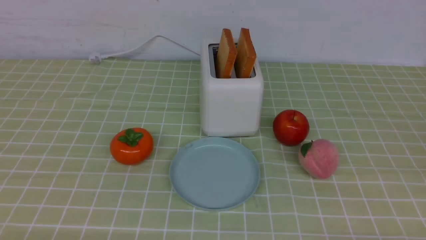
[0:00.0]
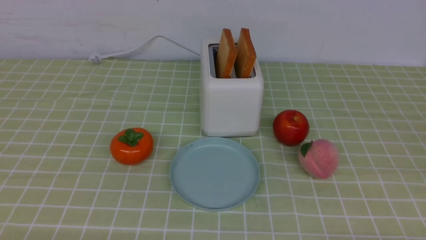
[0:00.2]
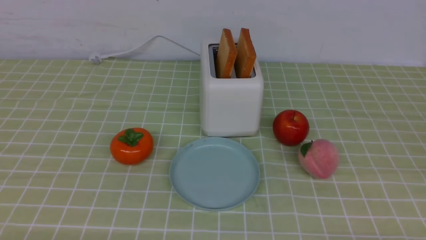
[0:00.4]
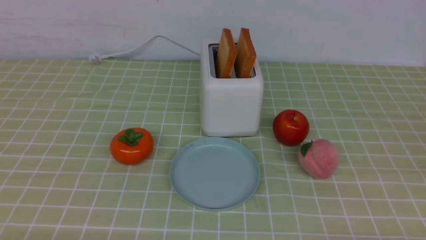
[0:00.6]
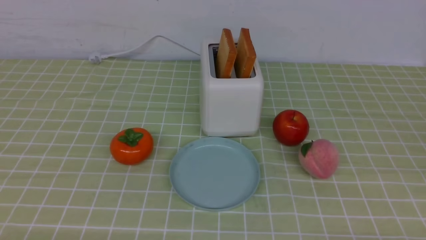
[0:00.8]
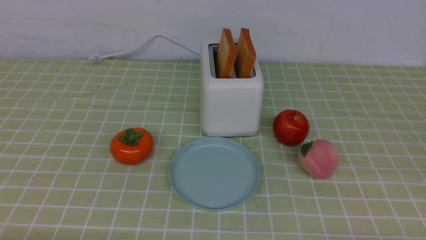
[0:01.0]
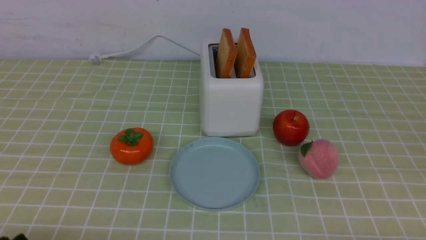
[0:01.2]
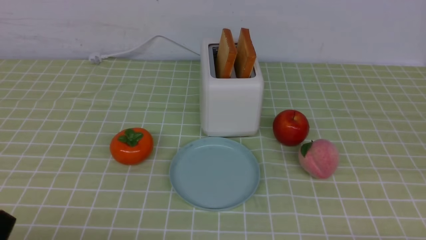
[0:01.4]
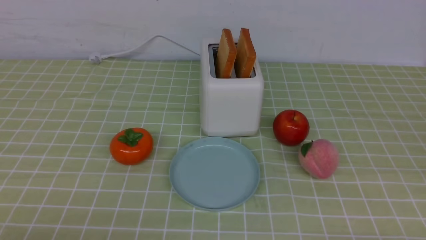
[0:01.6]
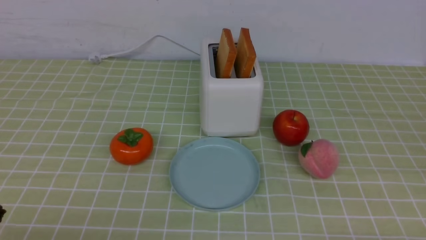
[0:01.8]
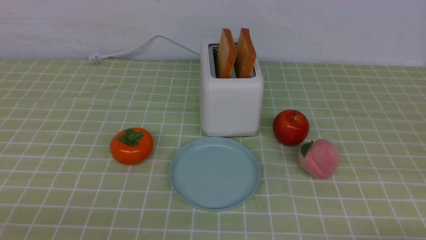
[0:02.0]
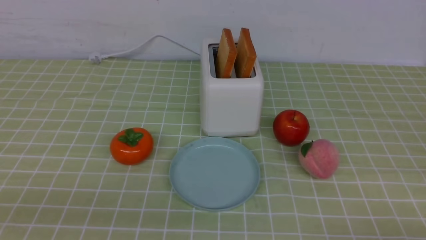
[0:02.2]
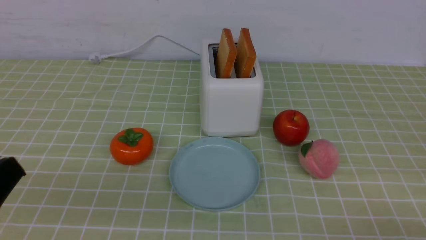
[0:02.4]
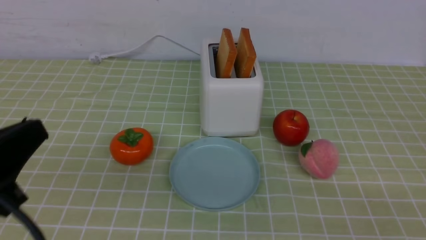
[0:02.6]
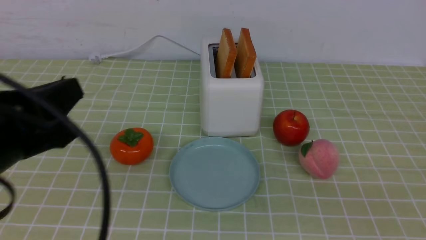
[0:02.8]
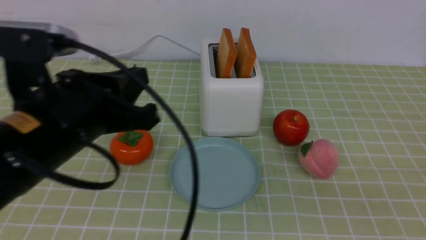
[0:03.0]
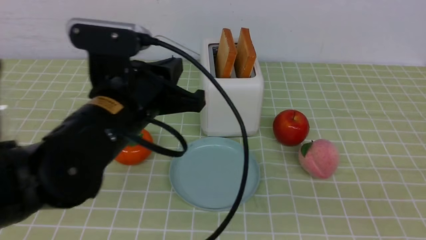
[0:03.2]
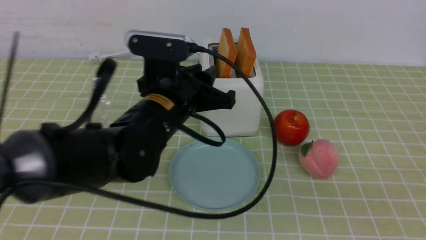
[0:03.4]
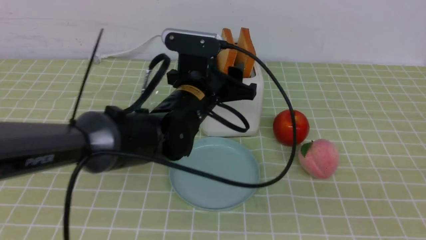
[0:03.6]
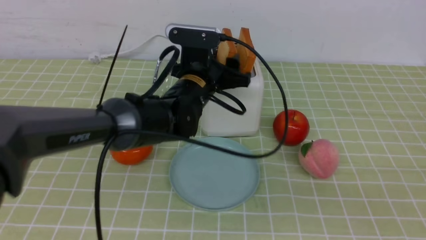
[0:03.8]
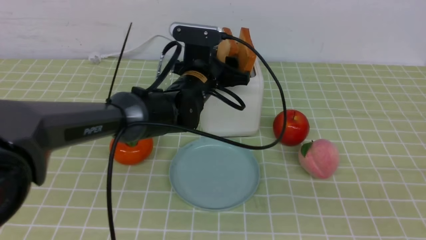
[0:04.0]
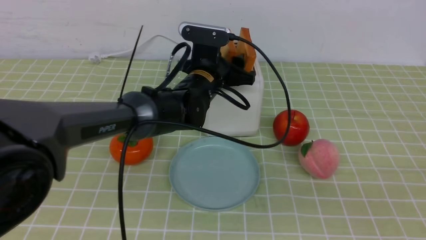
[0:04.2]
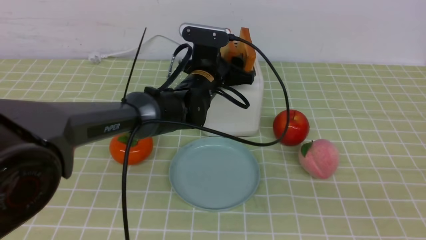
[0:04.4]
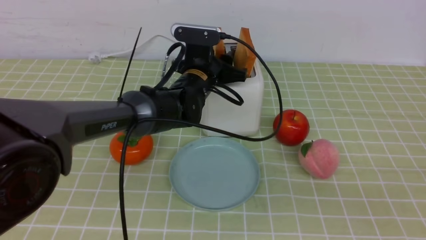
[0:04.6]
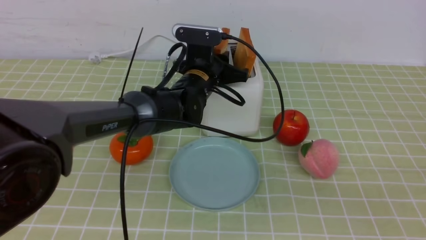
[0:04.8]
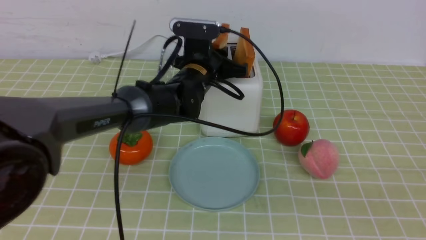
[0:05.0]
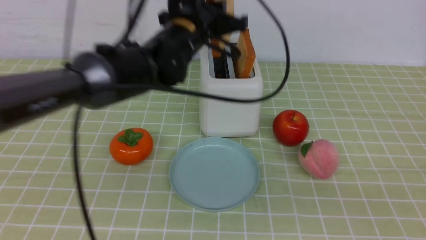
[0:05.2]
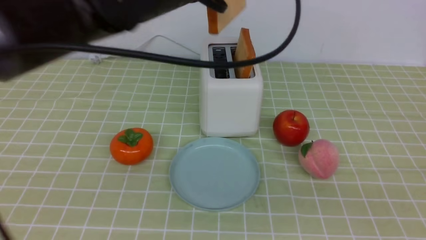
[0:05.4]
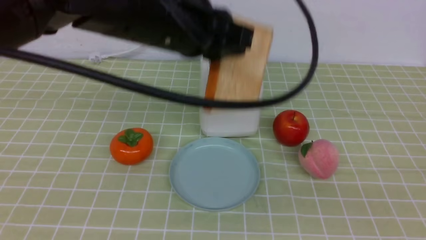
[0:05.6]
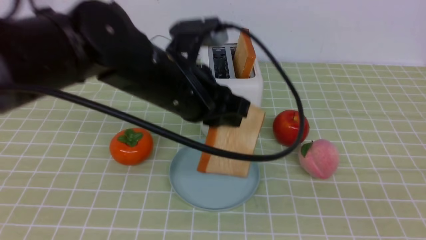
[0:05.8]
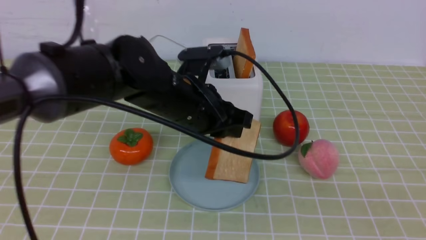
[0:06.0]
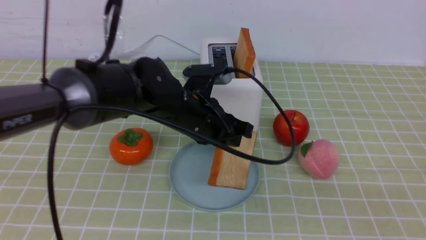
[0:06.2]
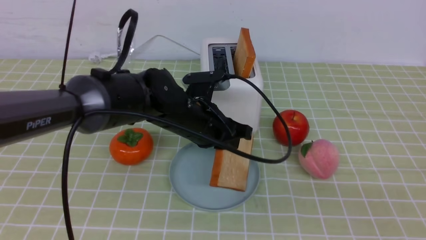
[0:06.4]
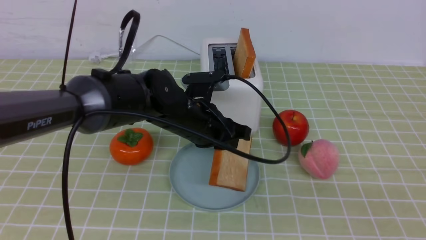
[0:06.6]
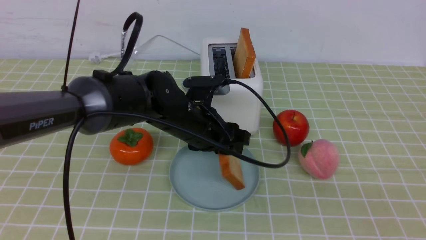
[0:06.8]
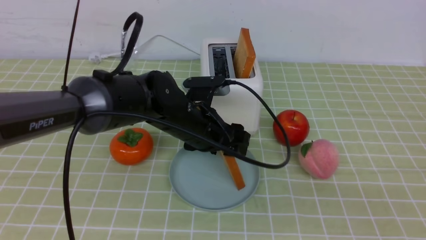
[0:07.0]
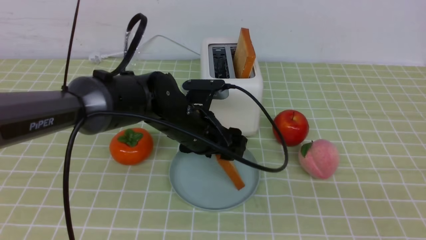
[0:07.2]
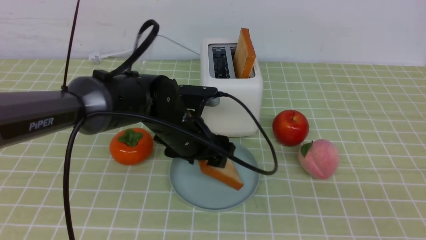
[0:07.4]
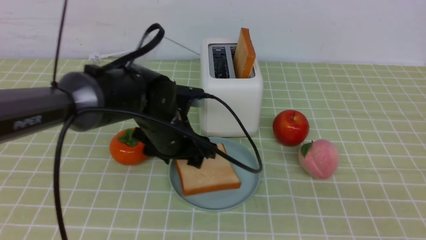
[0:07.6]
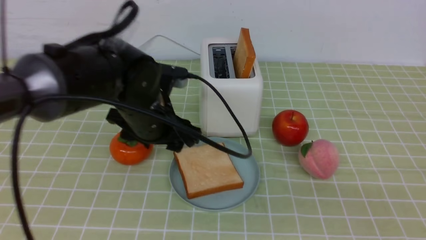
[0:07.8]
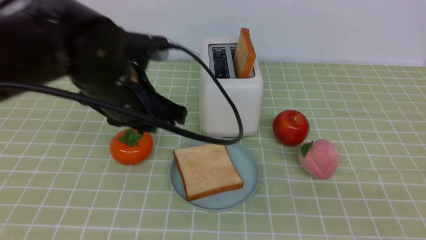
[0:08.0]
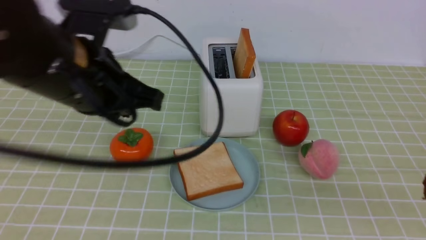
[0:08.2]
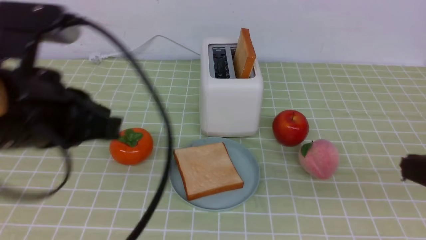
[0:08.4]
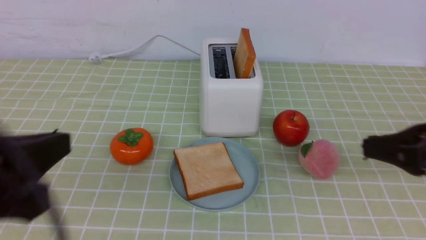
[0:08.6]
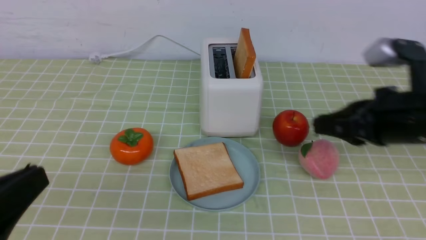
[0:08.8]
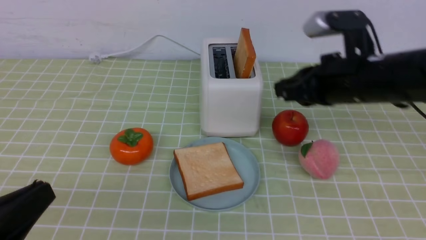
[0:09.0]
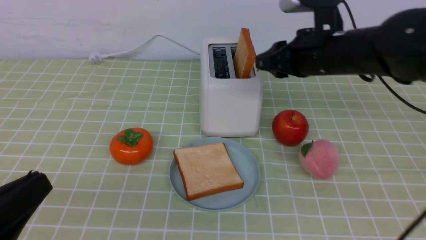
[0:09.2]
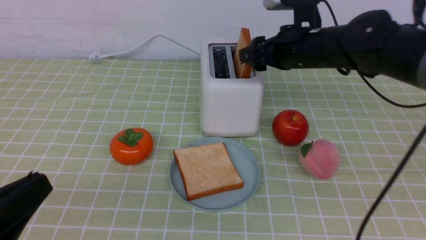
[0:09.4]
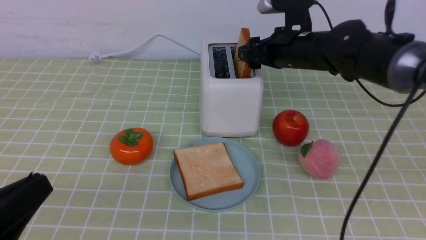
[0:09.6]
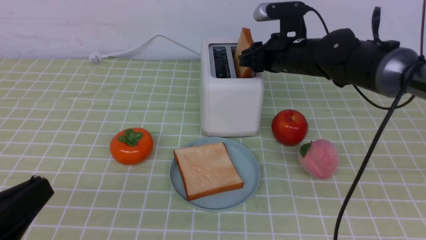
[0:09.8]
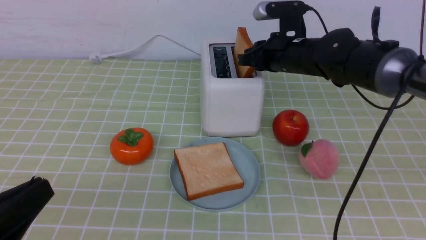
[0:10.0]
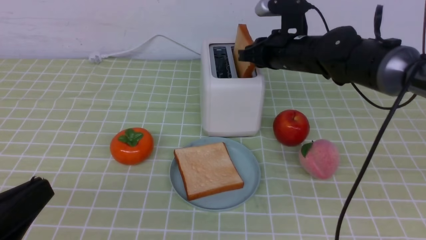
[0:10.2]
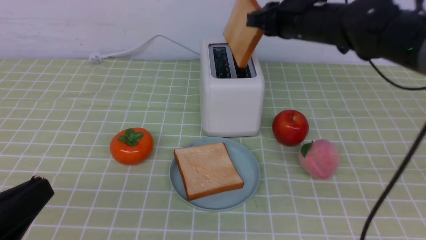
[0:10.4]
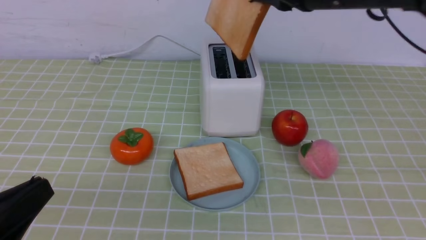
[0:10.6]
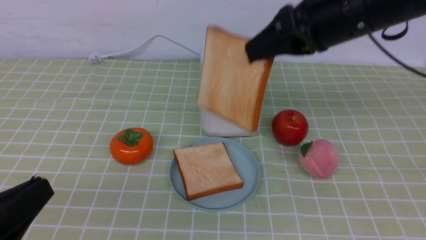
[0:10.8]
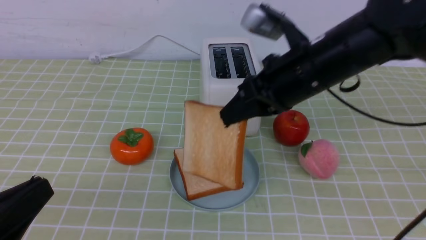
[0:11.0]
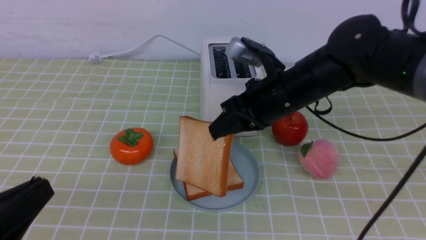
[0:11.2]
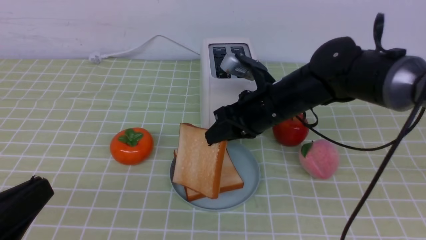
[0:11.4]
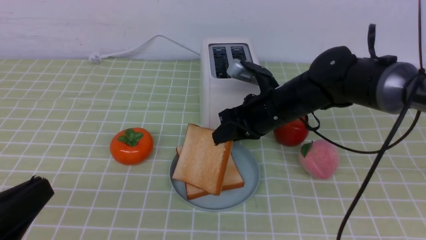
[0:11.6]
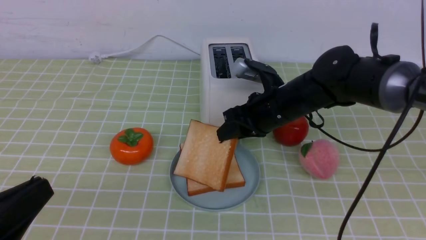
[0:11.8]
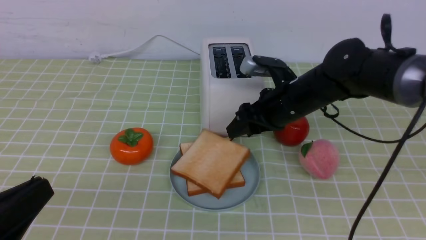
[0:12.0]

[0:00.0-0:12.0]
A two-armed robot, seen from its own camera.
Task of the whole recording: take toasted bread from bread machine on green coffee tablecloth place on plate.
Step, 0:00.0 to 0:05.2: use the left arm to take out a slice of bread.
Step, 0:05.4 to 0:08.0: use the left arm to put a slice of bread into the empty plate.
Step, 0:08.2 to 0:10.4: use the right arm to take out a slice of bread.
0:01.6 to 0:03.0: The right gripper moves upward, some 15 cm, and closes its fingers; the left gripper travels upward, forward and to the right by about 20 cm, and closes.
0:03.0 to 0:04.4: The left gripper goes some 30 cm forward and to the right, and opens up.
0:04.4 to 0:06.0: The left gripper is displaced backward and upward by about 15 cm, and closes up.
0:06.0 to 0:07.6: The left gripper is displaced downward by approximately 10 cm, and opens.
0:07.6 to 0:09.0: The left gripper heads backward and to the left, covering about 30 cm, and closes. The right gripper goes about 20 cm forward.
0:09.0 to 0:10.4: The right gripper goes roughly 15 cm forward, and opens, then closes again.
0:10.4 to 0:12.0: The right gripper goes some 10 cm downward and backward, and opens up.

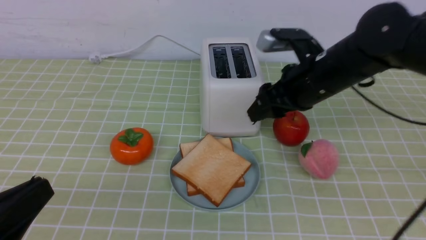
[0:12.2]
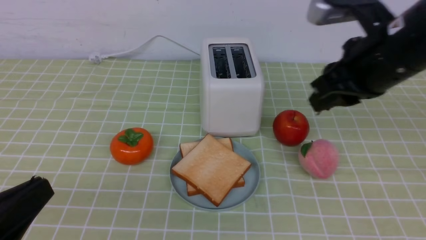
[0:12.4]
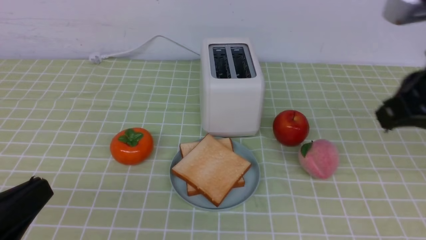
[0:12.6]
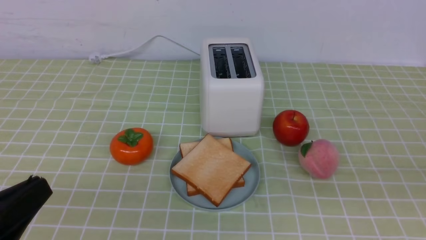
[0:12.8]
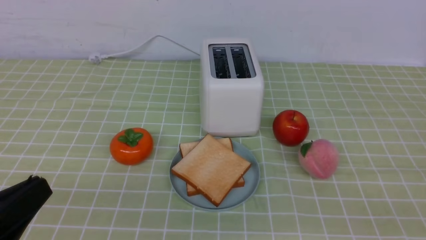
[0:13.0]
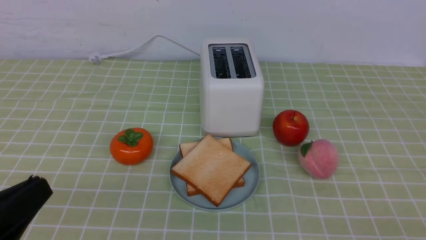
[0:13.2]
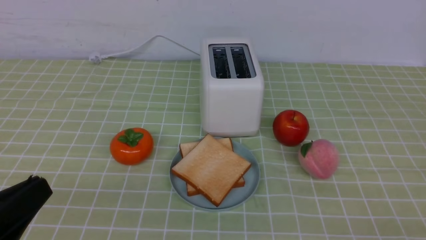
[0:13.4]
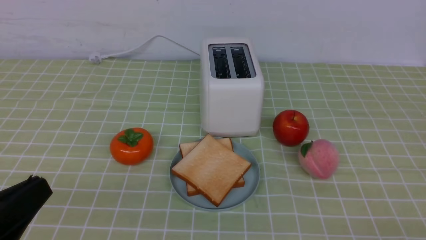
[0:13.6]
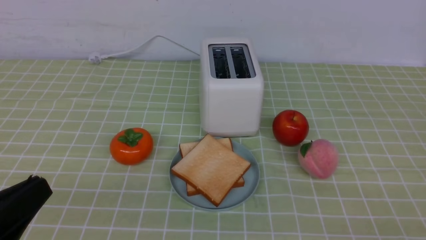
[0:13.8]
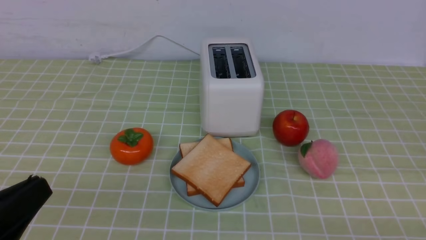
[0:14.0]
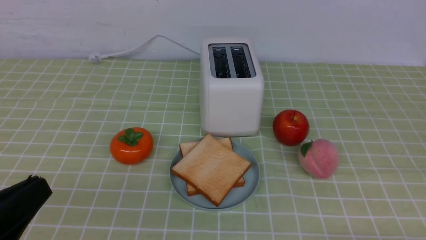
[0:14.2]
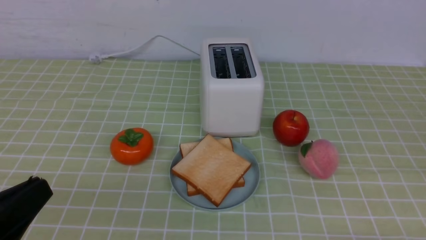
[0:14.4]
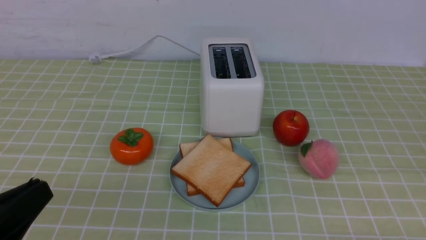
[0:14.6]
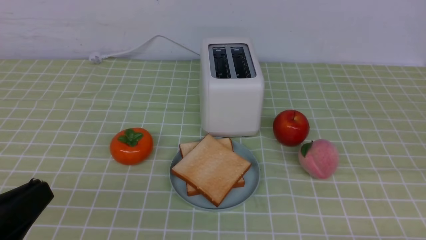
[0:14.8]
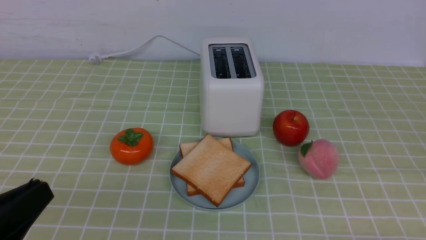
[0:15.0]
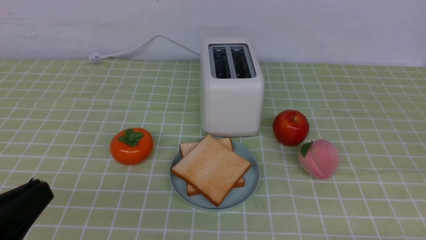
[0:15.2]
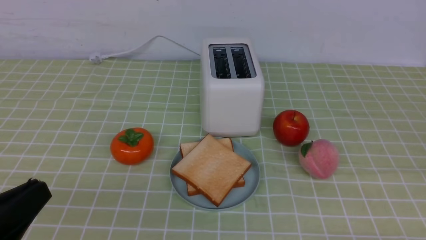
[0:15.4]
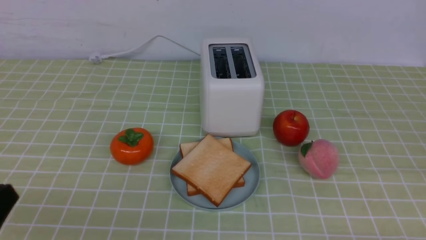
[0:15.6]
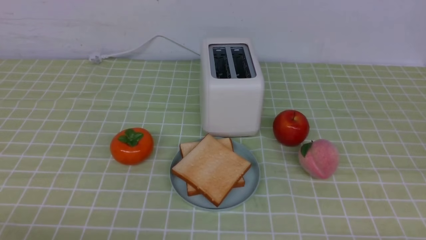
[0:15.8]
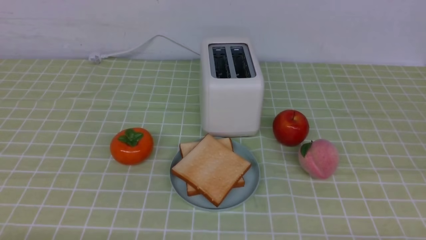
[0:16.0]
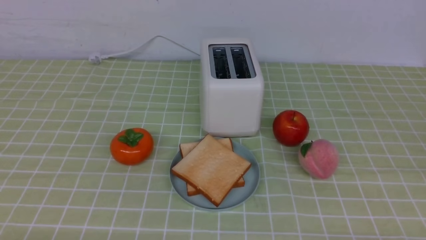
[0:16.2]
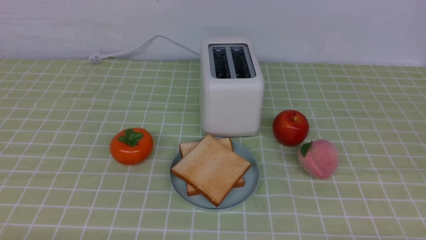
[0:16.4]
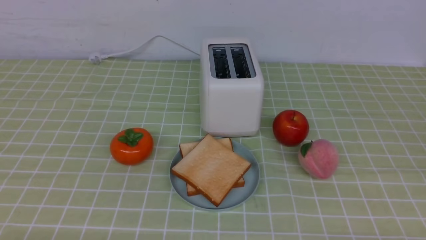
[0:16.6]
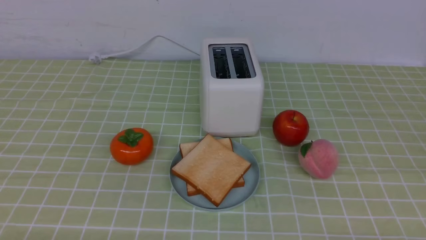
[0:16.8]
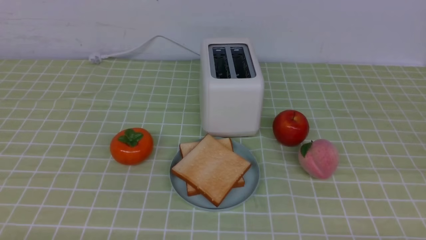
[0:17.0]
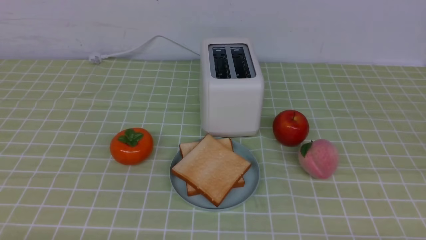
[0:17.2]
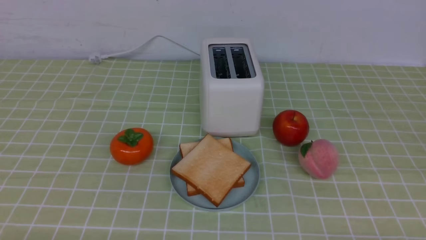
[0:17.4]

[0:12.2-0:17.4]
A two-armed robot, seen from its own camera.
Task of the whole recording: take toasted bread from bread machine on green coffee tablecloth place on plate.
0:12.2 to 0:14.0: The right gripper moves backward and to the right, some 35 cm, and closes up.
